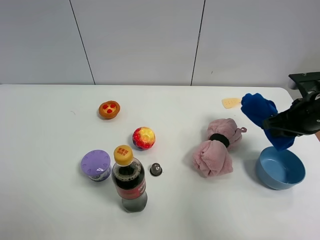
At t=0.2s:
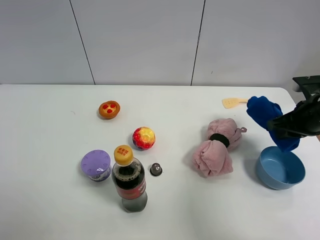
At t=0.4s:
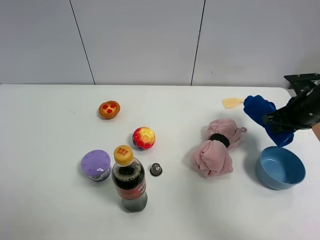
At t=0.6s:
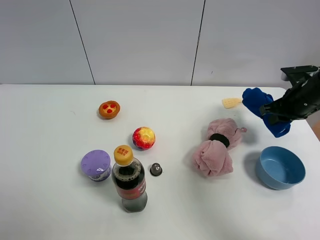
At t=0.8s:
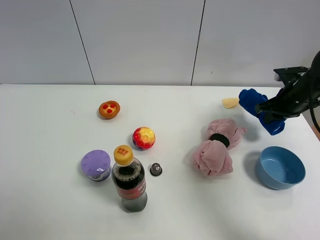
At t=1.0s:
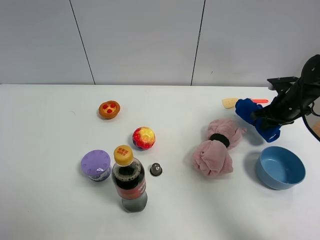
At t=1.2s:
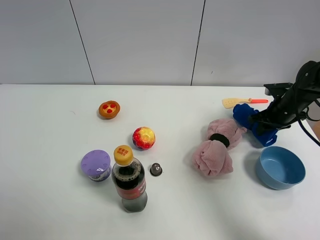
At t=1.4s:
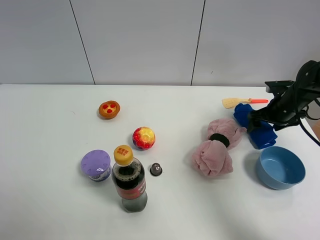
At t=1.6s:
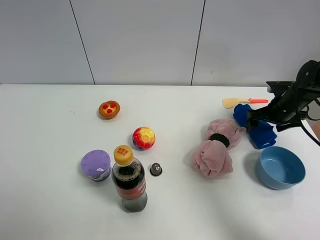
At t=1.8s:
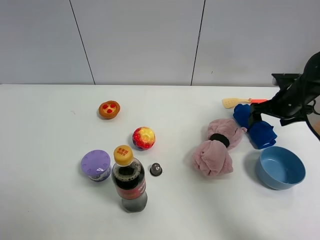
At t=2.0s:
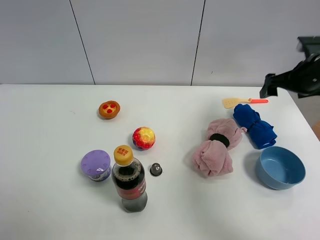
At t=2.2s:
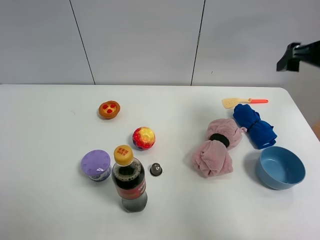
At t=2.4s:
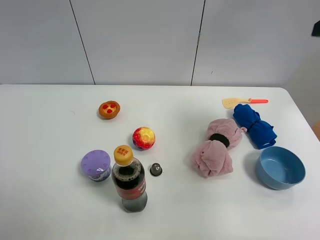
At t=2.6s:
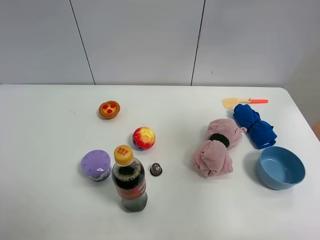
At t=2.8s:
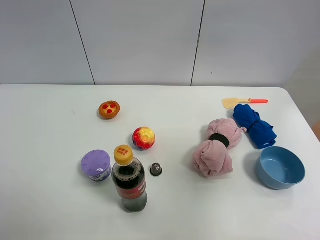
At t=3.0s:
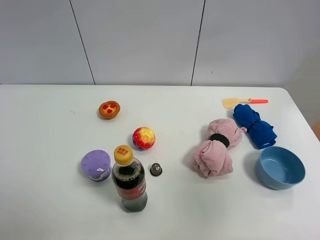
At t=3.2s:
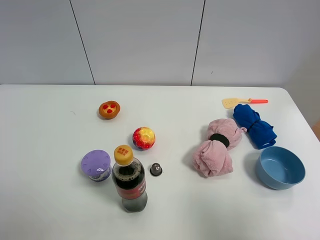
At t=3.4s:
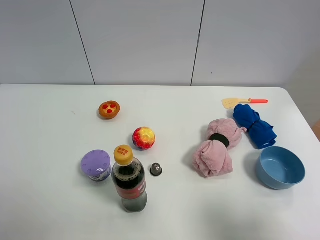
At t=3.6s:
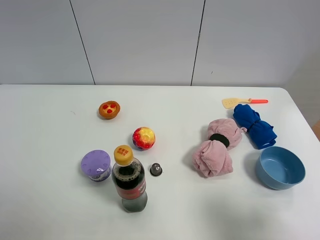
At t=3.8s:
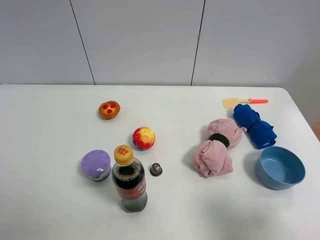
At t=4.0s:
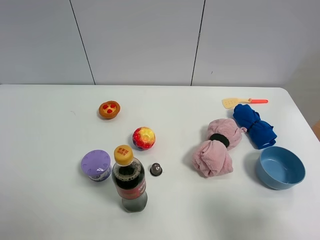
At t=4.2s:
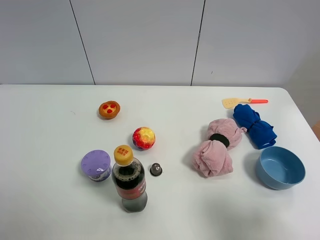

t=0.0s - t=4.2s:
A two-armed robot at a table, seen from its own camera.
Task of the whole recording: the gripper move the object.
t=0.0s - t=1.4s: The right gripper moves forward and downward, about 15 cm, and opens.
t=1.4s - t=2.8s: The right gripper moves backward and upward, approximately 50 cm.
t=2.8s - t=4.2s: The right gripper goes roughly 15 cm downward.

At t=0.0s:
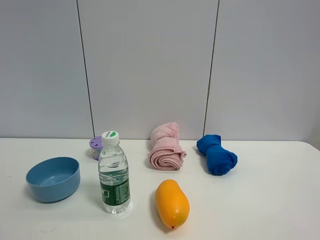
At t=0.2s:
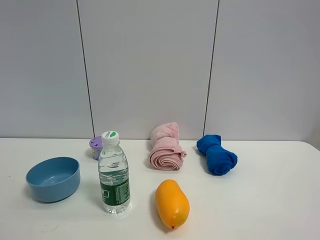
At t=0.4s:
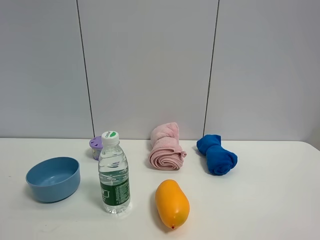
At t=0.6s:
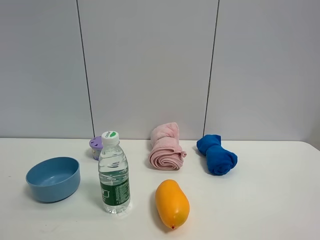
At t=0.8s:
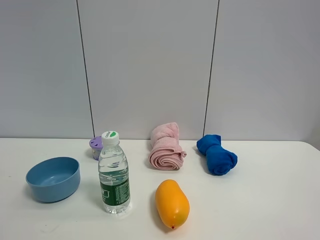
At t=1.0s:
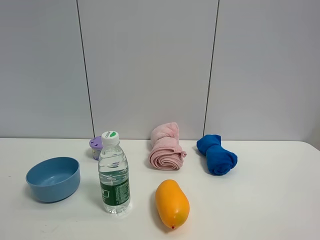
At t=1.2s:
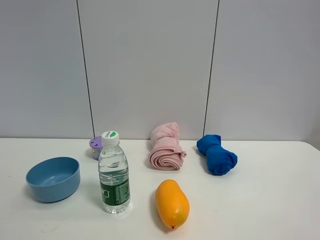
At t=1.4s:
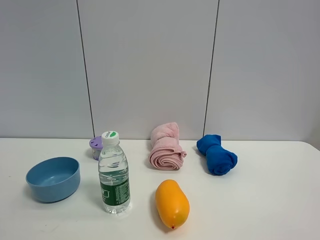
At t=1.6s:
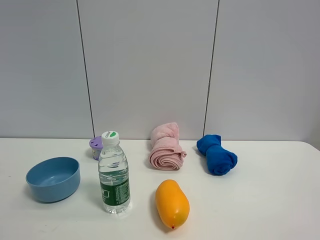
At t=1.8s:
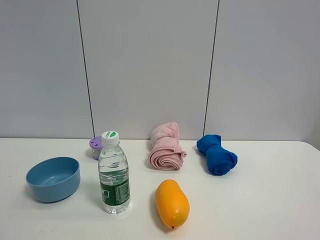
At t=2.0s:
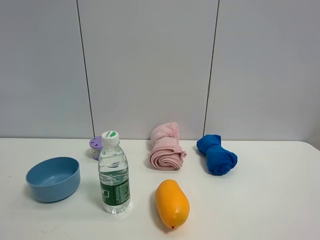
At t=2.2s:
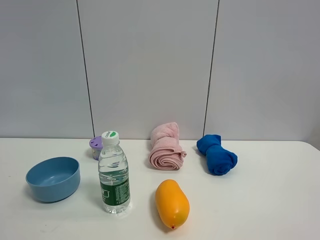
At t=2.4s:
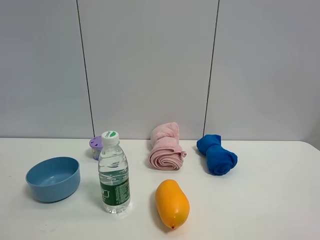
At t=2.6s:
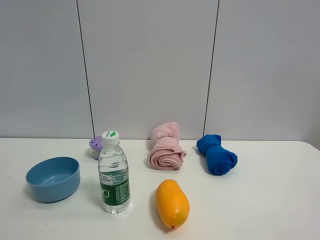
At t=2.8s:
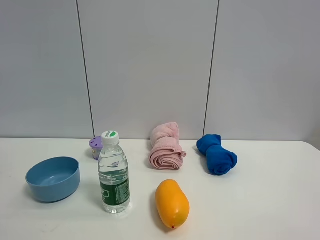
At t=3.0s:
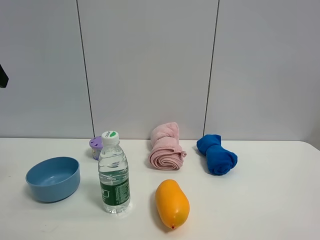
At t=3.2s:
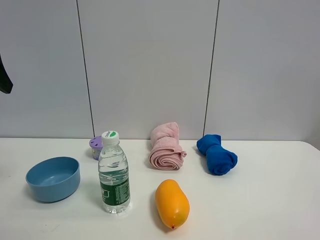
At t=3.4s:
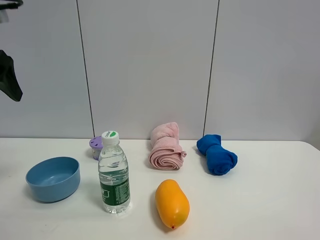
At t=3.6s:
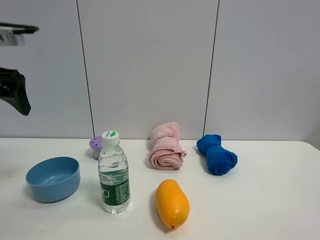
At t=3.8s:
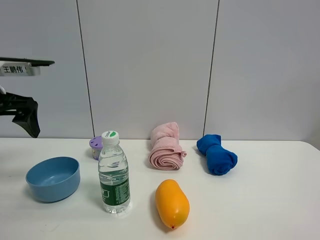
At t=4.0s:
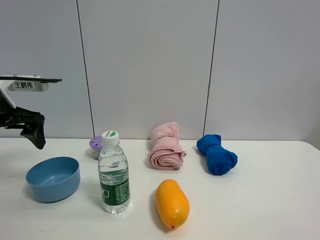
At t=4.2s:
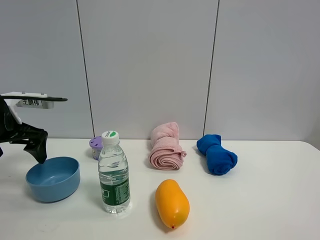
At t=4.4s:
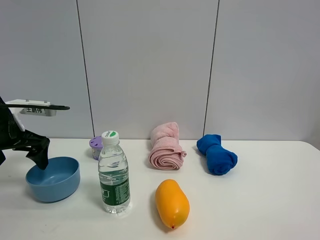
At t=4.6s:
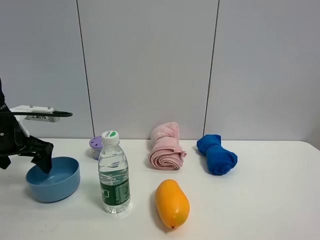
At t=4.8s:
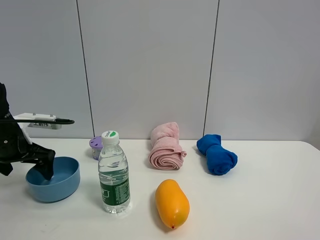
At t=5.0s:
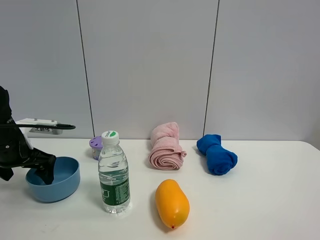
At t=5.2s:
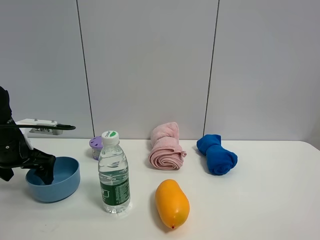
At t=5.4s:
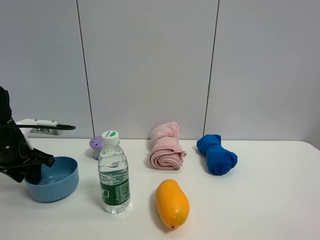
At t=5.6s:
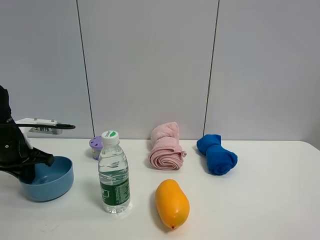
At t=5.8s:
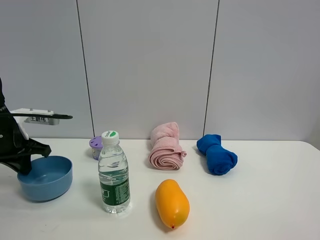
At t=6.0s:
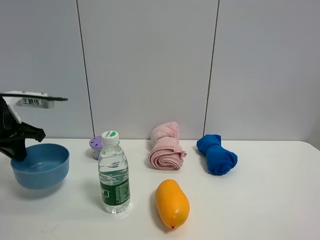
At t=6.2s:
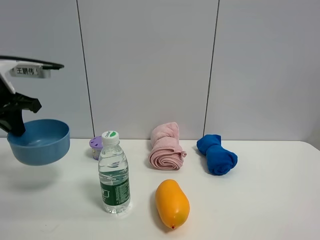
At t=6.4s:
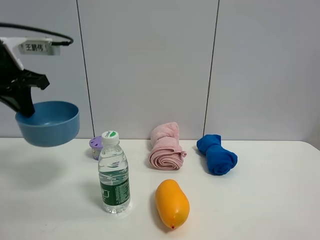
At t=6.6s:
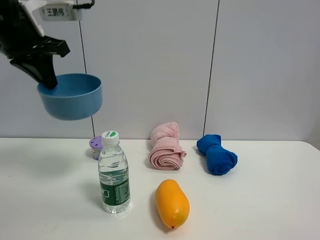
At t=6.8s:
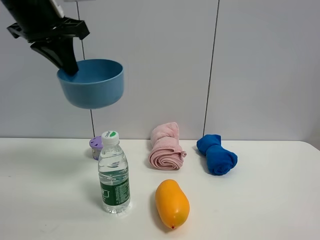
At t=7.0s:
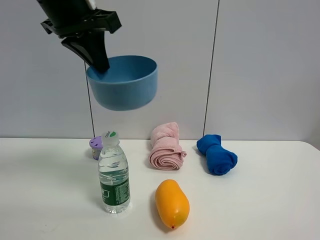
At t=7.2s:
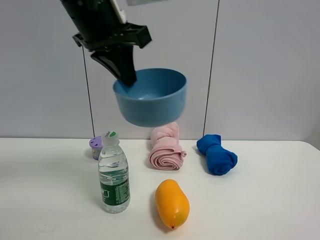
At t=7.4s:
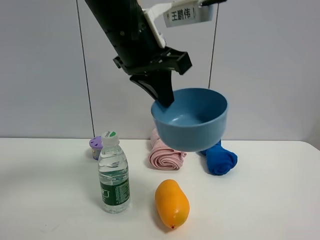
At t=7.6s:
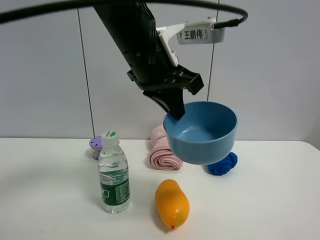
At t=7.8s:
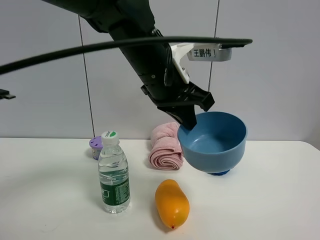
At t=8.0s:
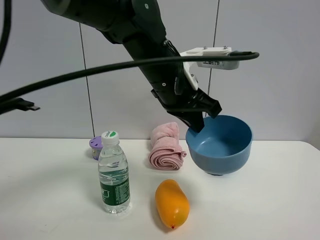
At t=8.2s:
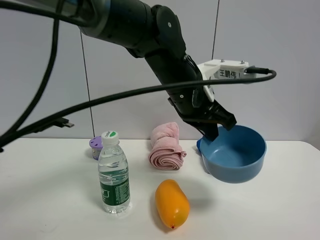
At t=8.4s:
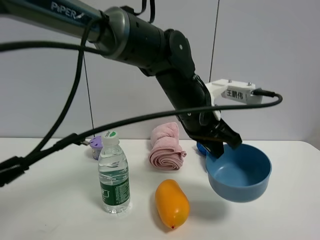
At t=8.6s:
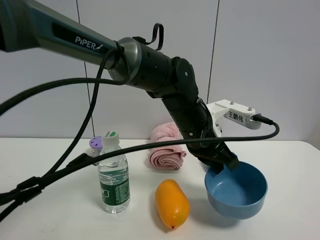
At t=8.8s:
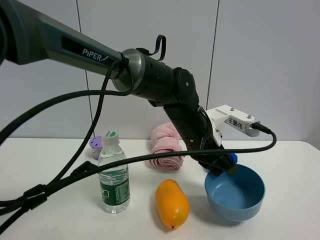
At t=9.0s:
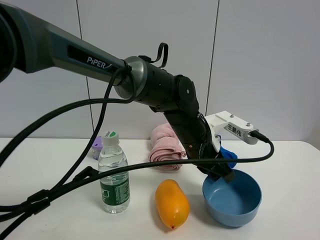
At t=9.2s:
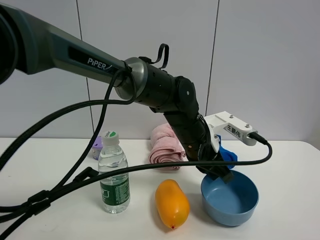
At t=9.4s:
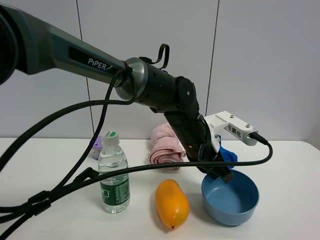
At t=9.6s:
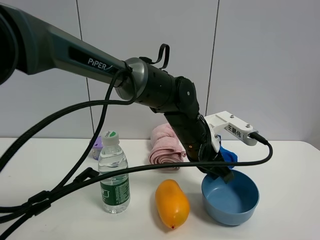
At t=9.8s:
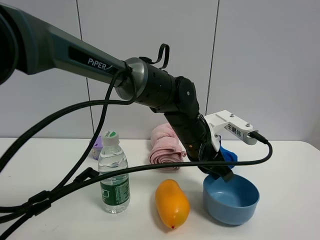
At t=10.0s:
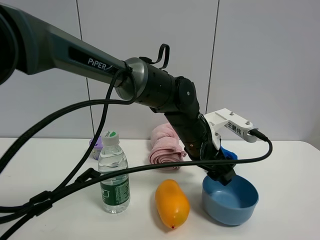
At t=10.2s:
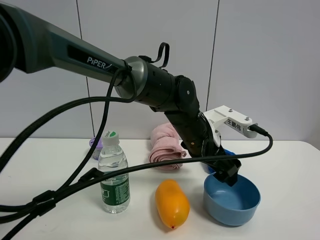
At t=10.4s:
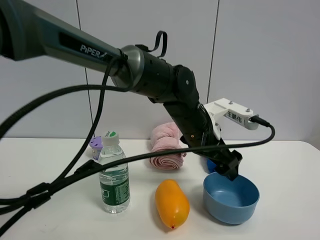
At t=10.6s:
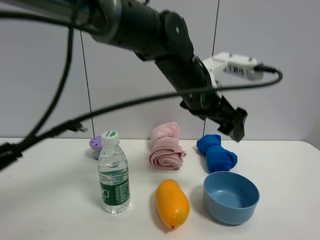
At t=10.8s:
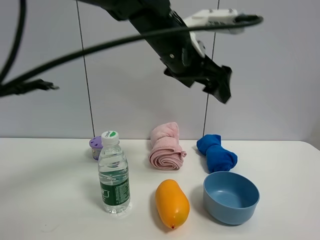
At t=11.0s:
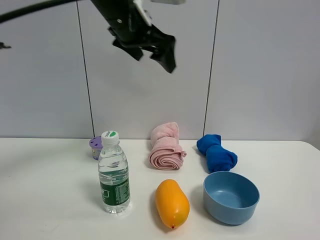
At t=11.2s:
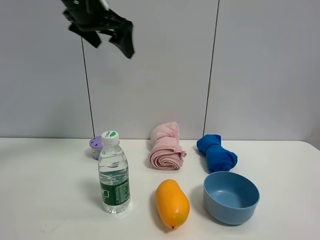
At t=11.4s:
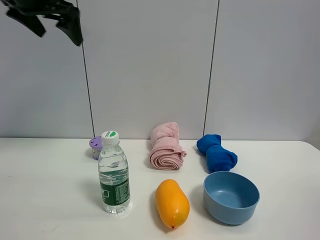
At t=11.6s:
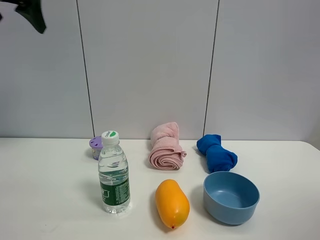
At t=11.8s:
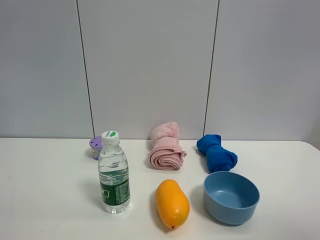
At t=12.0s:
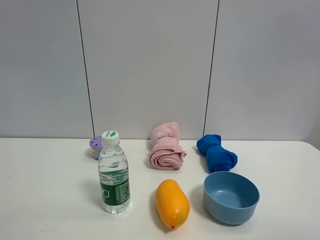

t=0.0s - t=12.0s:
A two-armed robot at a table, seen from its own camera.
Task of the whole recording: the gripper move the object.
Step, t=0.0s - t=5.6s: Grasp the blue bowl with the left gripper.
Step, t=5.8s - t=10.0s: Place the blue bowl on the table with the left gripper.
t=0.0s - t=1.6s: Both grippers stay about where they are.
t=3.0s - t=4.4s: The left gripper goes some 20 cm downward and forward.
t=4.4s - t=6.0s: The left gripper closes.
t=6.0s - t=7.6s: The left gripper goes roughly 30 cm to the right.
t=7.6s - t=9.0s: The left gripper heads downward and to the right, covering some 20 cm.
t=9.0s - t=10.4s: The left gripper opens up.
t=10.4s - t=12.0s: The left gripper goes approximately 50 cm to the left and upward.

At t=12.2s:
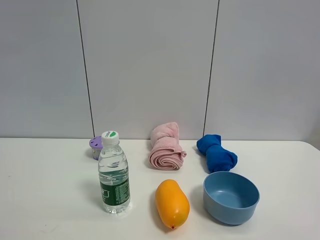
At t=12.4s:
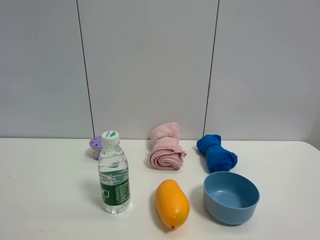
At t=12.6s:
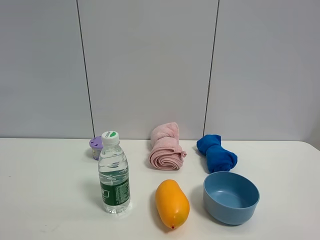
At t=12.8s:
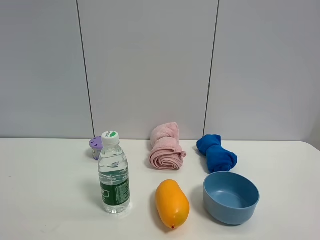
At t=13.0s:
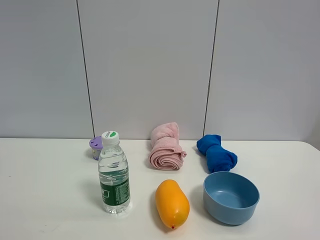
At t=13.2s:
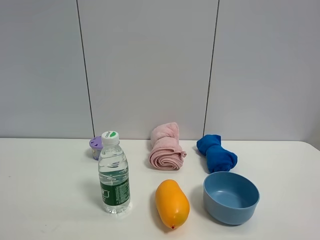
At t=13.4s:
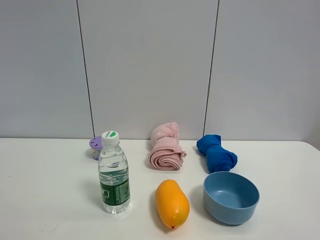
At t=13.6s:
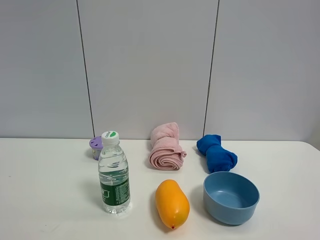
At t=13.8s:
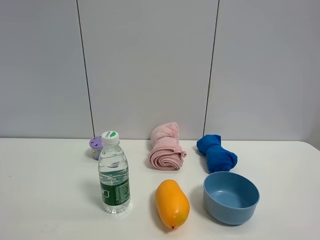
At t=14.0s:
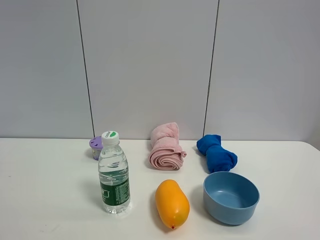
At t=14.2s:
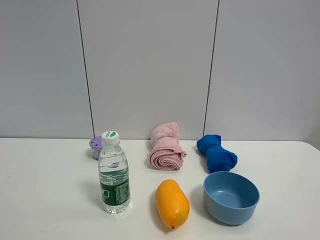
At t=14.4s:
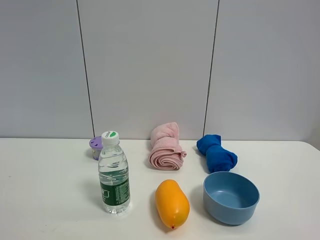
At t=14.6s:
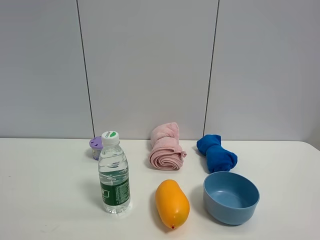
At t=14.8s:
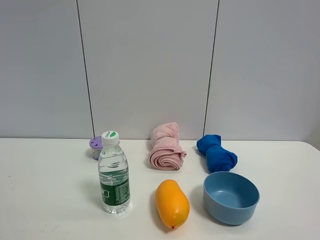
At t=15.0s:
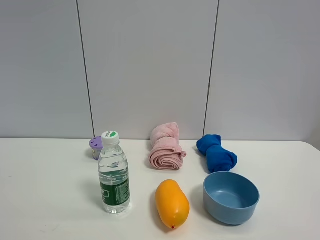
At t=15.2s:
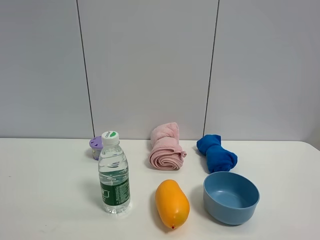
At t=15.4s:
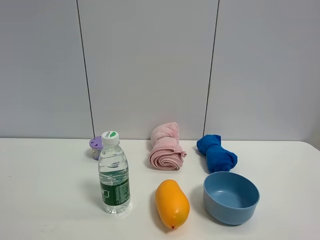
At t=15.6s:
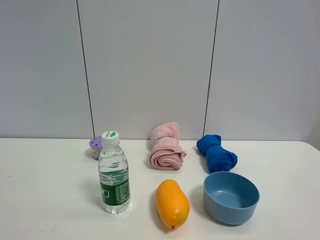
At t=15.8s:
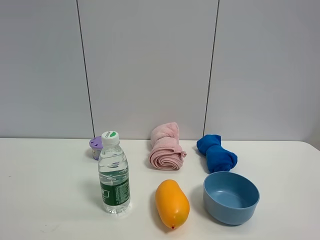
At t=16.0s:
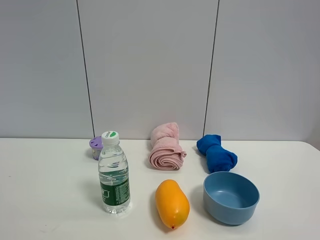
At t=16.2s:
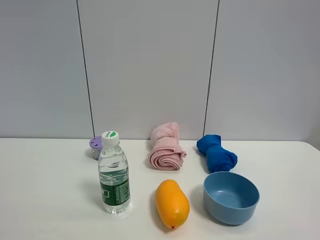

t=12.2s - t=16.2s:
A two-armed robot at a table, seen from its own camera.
Task of the whole recording: the gripper move the object.
t=14.8s - t=16.2s: Both grippers stay put.

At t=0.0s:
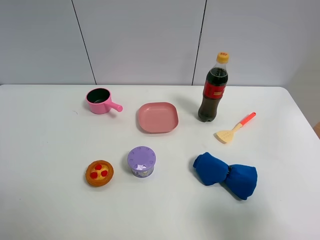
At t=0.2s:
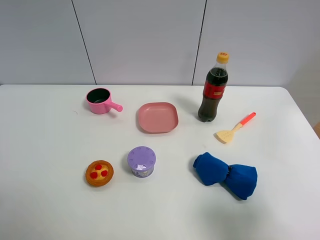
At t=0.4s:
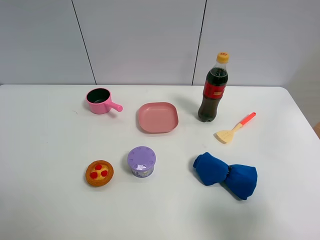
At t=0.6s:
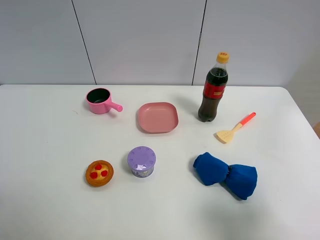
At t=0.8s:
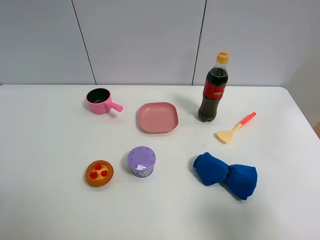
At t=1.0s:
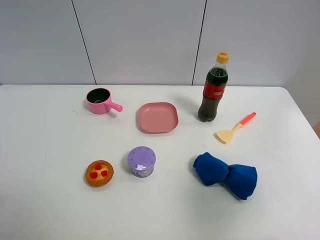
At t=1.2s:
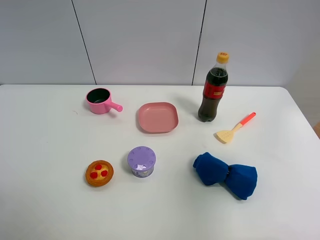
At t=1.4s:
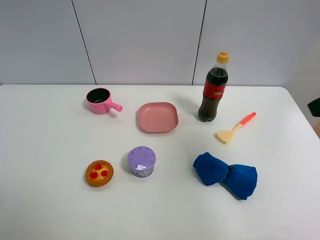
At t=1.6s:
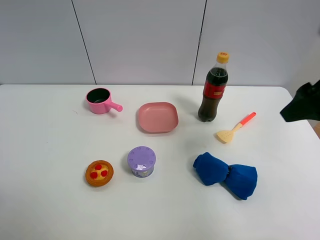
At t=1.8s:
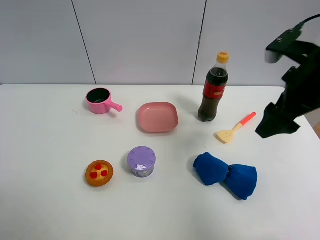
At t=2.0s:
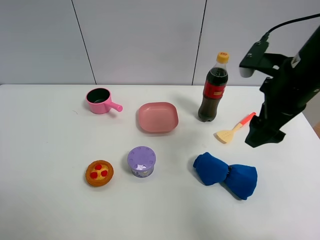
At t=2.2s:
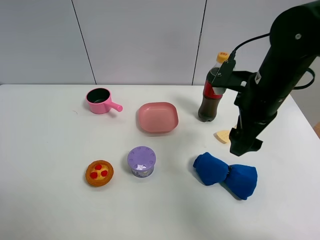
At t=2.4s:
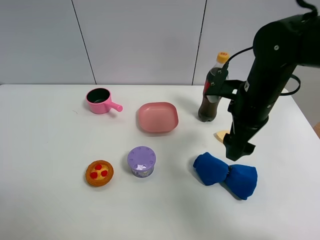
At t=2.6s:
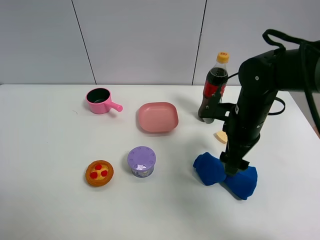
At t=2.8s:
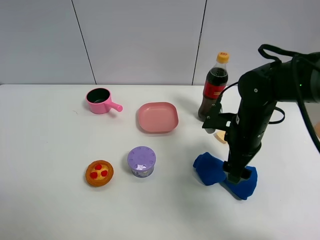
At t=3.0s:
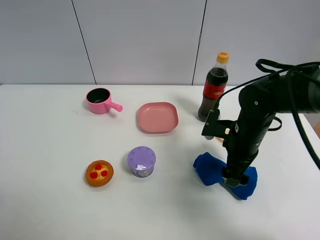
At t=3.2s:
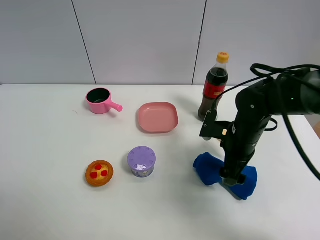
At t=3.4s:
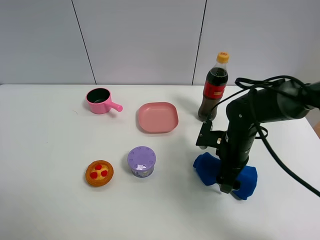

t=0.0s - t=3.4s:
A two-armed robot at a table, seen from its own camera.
Task of the whole recording: the gripper move the object.
t=0.0s - t=1.6s: The right gripper travels forward by some 20 cm.
t=1.6s - t=3.4s: The right gripper moves downward, roughly 25 cm.
